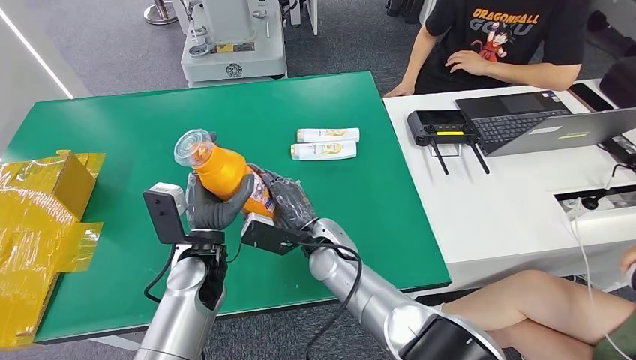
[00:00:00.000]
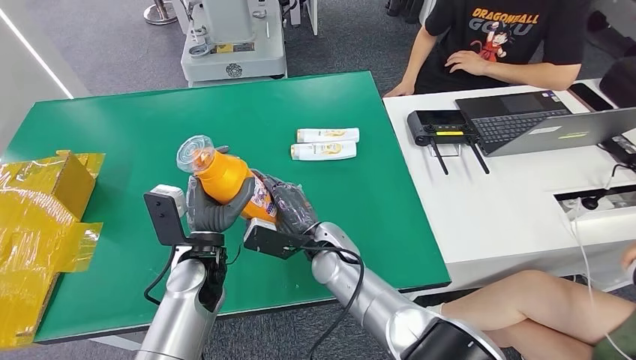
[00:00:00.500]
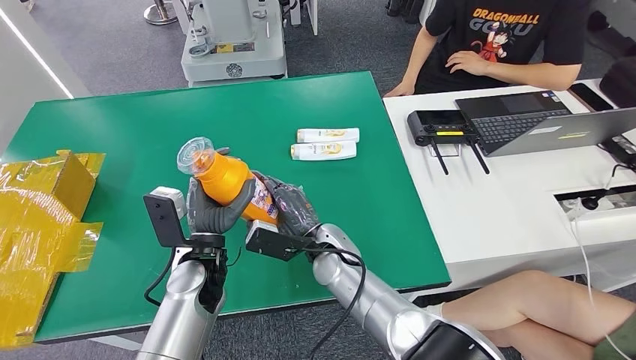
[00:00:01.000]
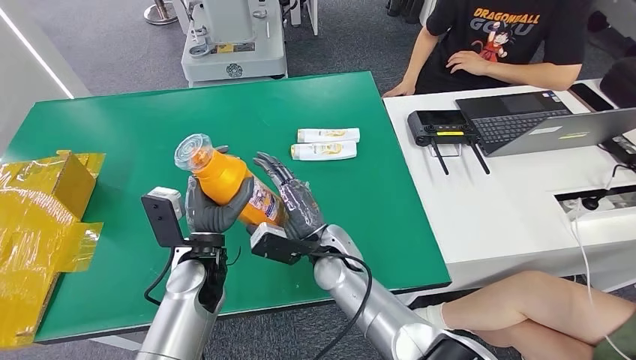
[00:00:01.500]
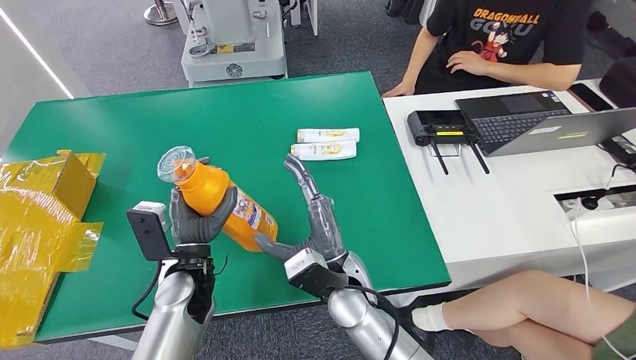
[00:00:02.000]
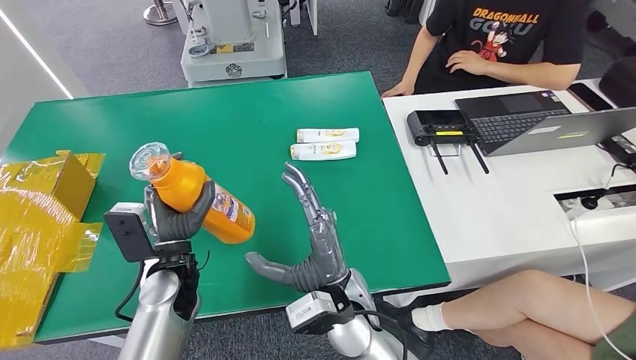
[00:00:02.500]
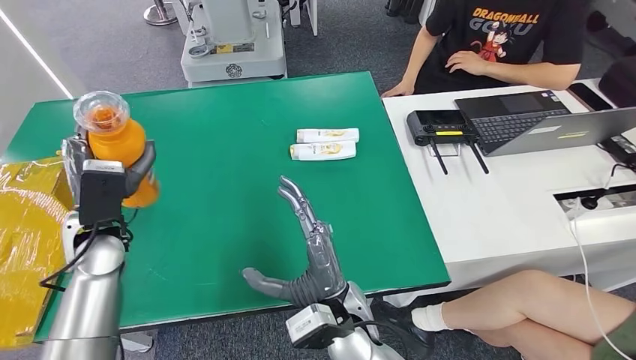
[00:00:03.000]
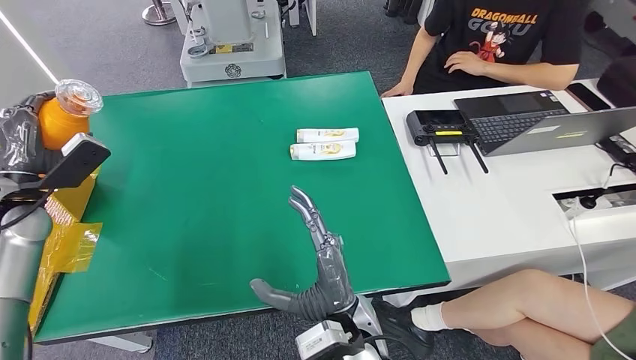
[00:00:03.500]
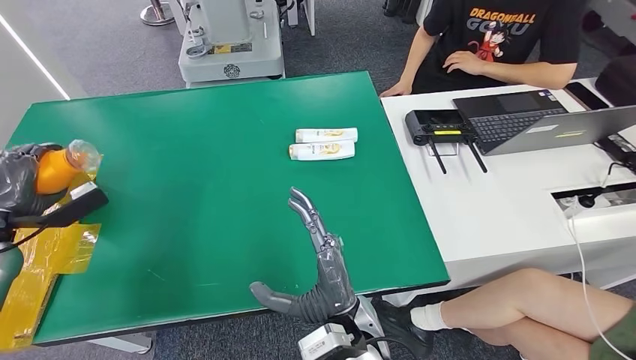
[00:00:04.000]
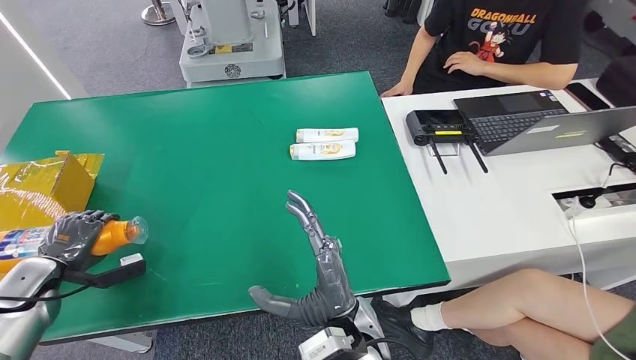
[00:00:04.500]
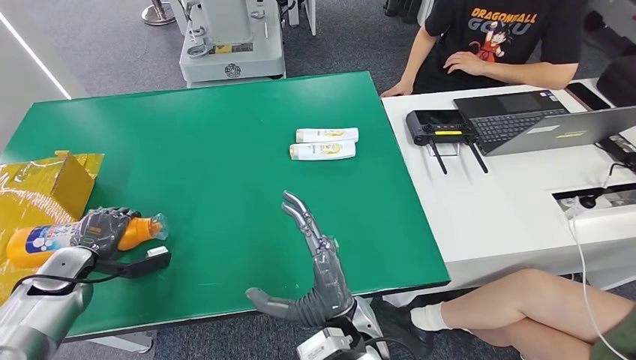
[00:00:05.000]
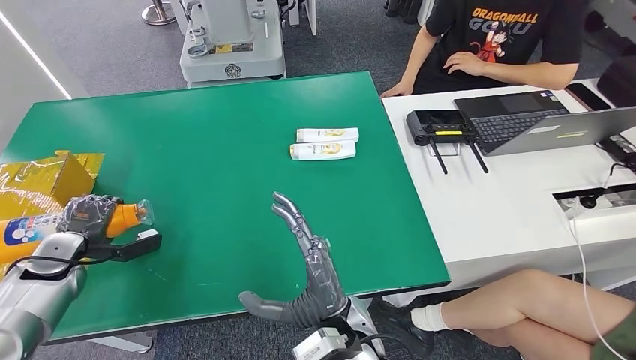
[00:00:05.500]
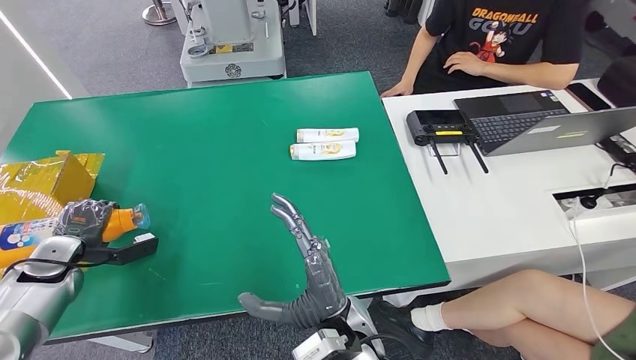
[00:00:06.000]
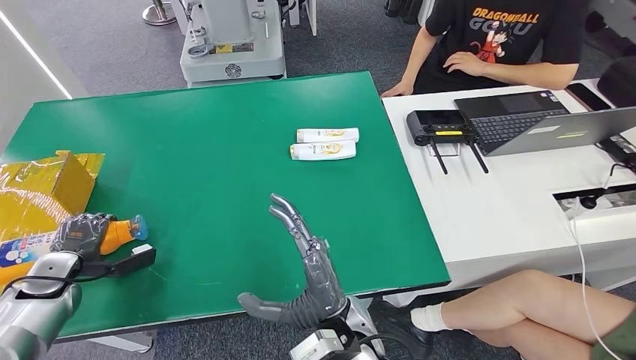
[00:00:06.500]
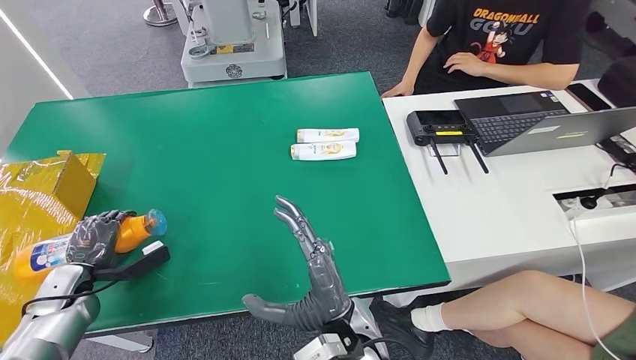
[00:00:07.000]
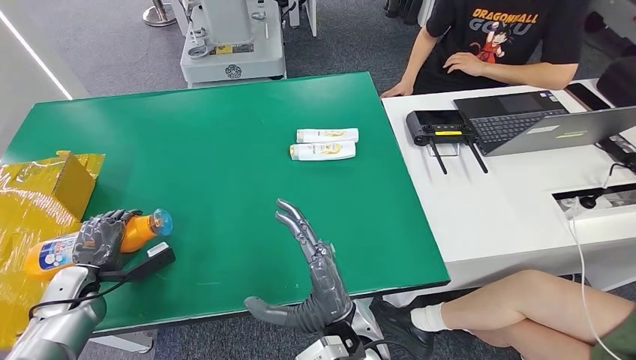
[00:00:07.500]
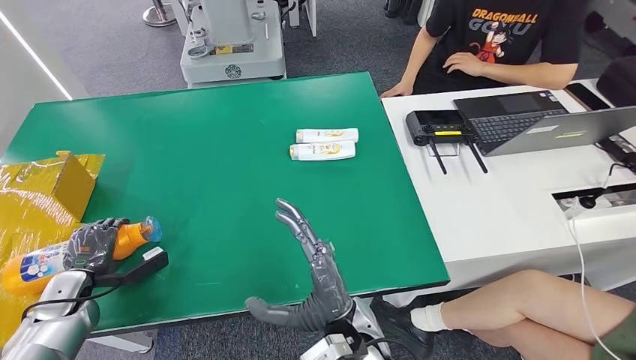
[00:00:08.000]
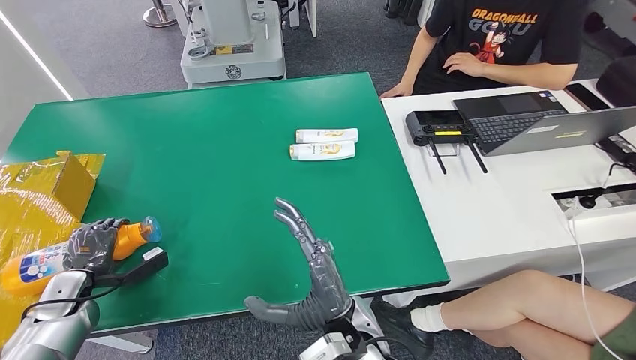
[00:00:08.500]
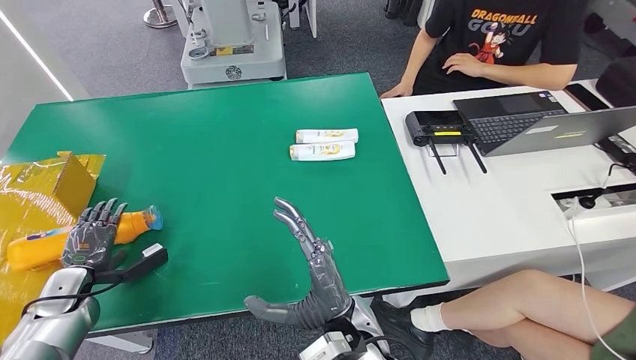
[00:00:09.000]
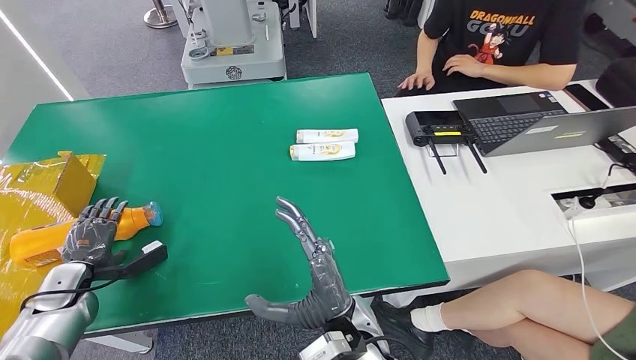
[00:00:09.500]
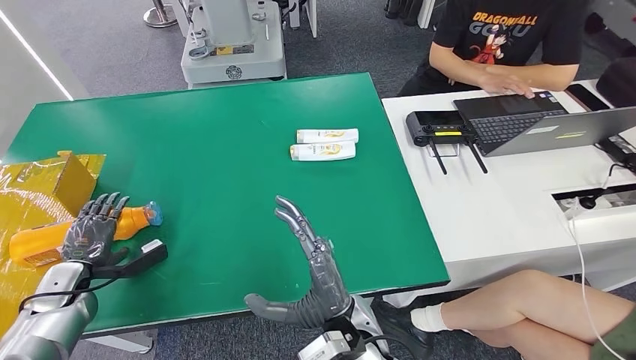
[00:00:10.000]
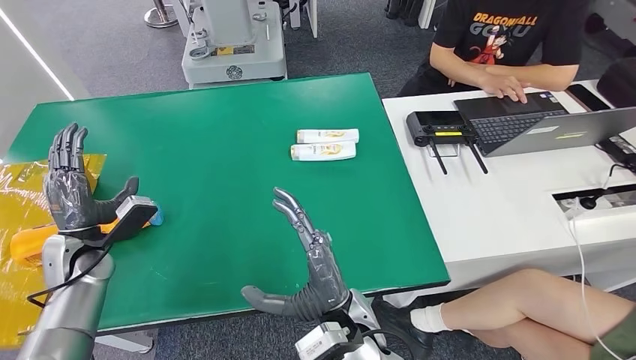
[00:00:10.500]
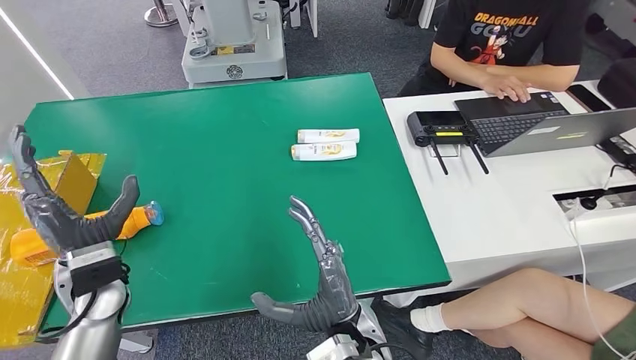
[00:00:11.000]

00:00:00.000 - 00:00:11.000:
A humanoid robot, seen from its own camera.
Step, 00:00:00.000 - 00:00:11.000: Turn the bottle to the front side.
00:00:00.000 - 00:00:02.000: The right hand moves backward, approximately 5 cm.
00:00:03.500 - 00:00:05.500: The left hand is displaced downward by some 15 cm.
00:00:05.500 - 00:00:07.500: The left hand travels downward by approximately 5 cm.
00:00:07.500 - 00:00:09.000: There are only small adjustments of the hands.
00:00:09.000 - 00:00:11.000: The left hand is displaced to the right and upward by roughly 20 cm.
